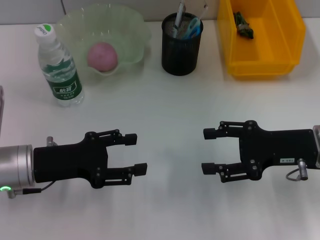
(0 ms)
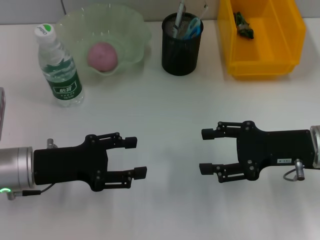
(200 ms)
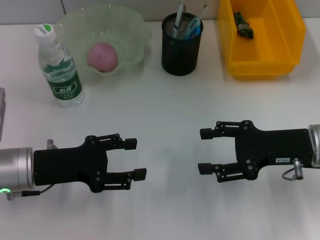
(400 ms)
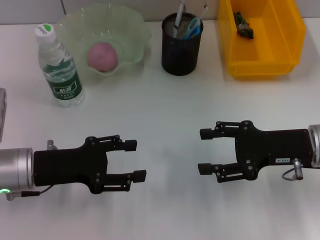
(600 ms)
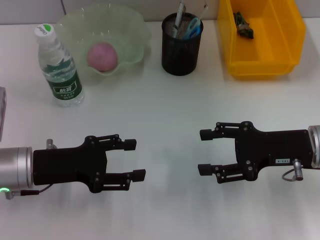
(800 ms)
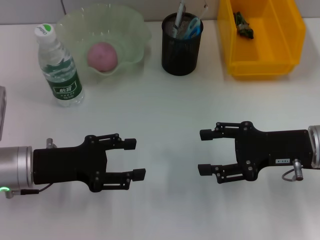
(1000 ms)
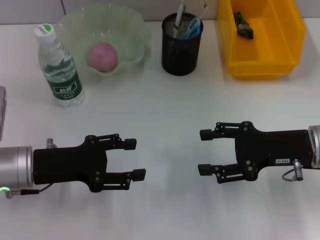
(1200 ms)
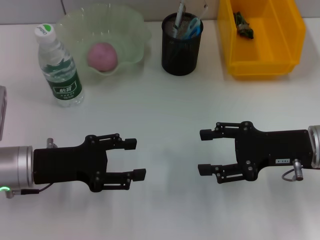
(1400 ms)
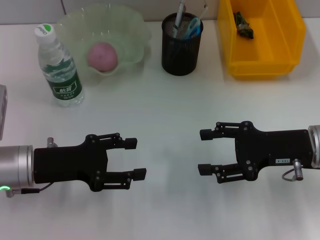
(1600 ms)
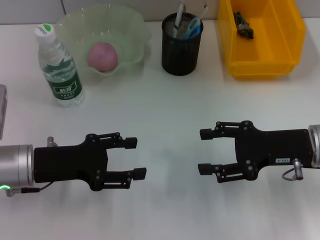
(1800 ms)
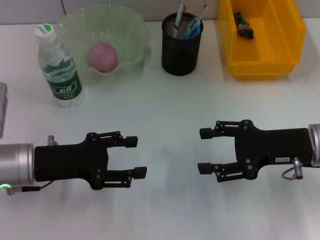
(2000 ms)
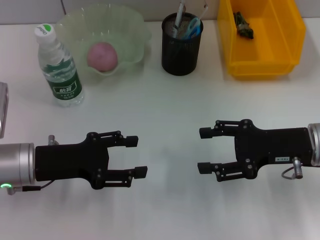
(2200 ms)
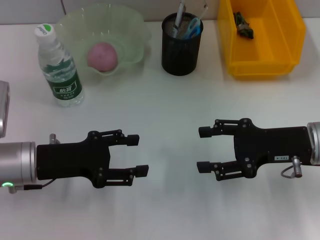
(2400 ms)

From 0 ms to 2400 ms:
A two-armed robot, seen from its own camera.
From 0 ms to 2400 ms: Both grippers stay put.

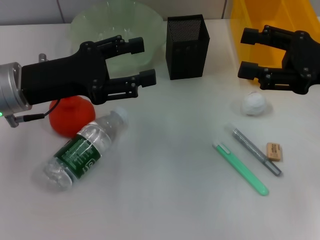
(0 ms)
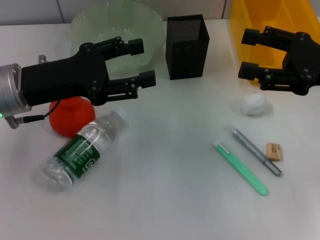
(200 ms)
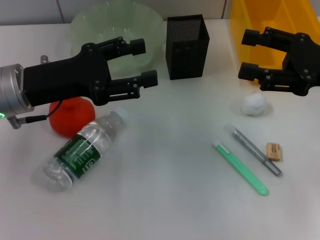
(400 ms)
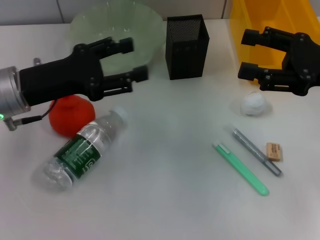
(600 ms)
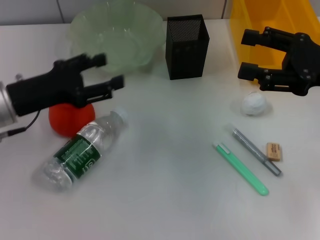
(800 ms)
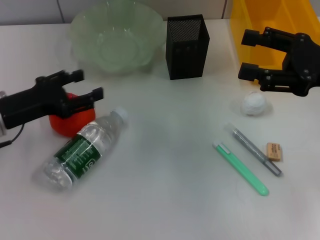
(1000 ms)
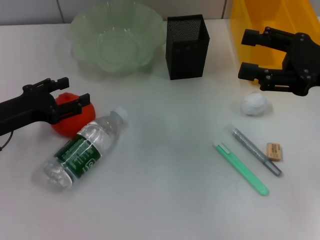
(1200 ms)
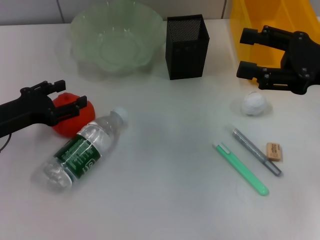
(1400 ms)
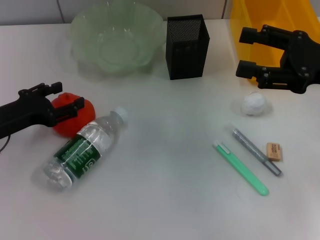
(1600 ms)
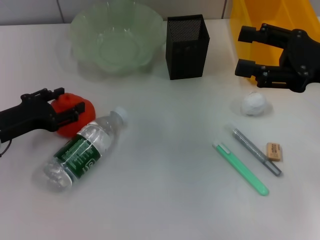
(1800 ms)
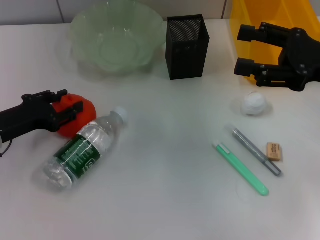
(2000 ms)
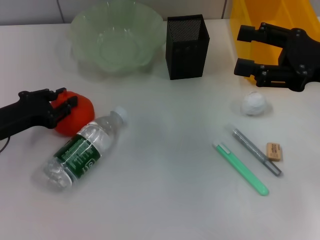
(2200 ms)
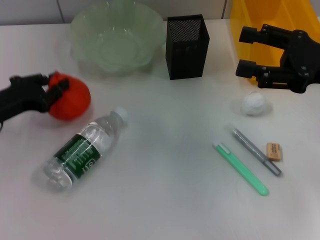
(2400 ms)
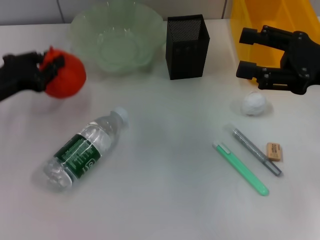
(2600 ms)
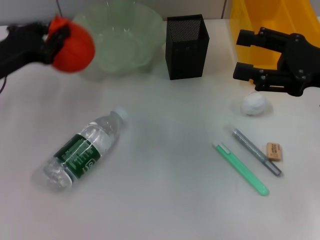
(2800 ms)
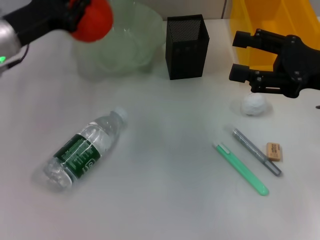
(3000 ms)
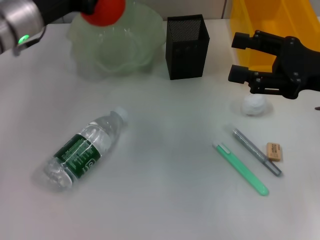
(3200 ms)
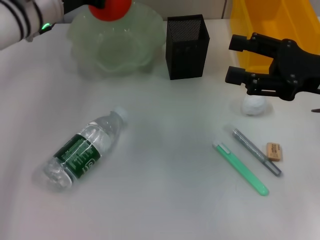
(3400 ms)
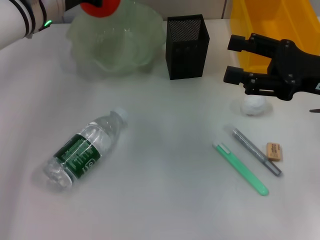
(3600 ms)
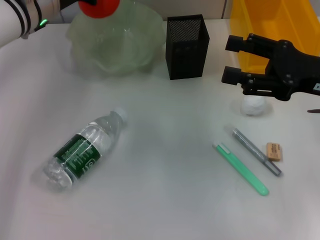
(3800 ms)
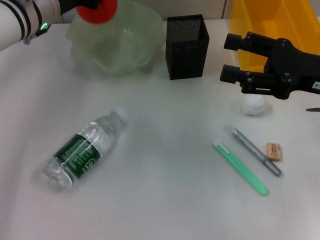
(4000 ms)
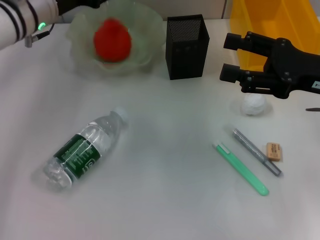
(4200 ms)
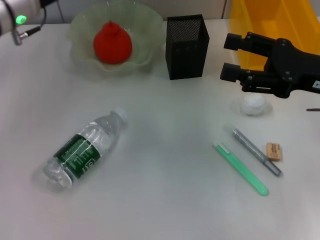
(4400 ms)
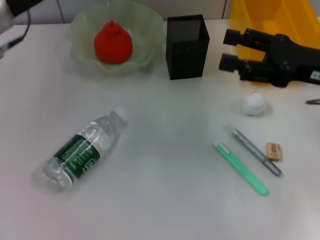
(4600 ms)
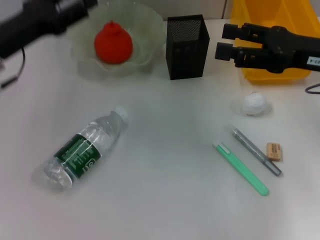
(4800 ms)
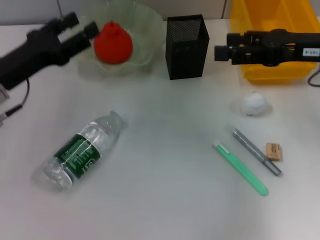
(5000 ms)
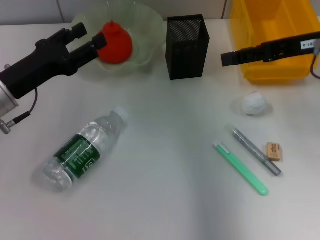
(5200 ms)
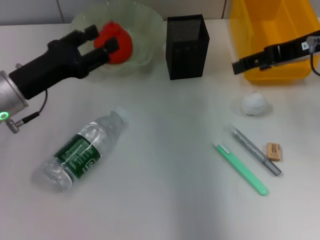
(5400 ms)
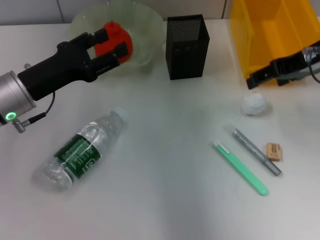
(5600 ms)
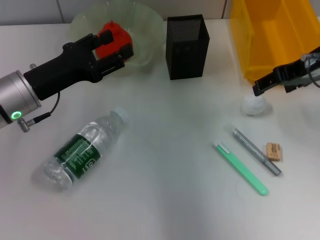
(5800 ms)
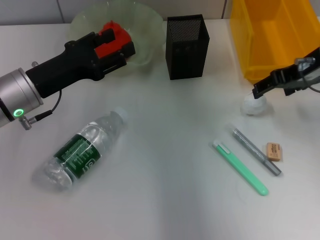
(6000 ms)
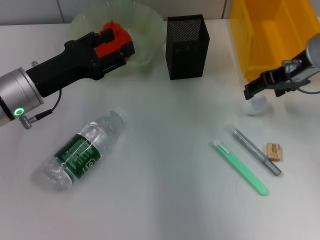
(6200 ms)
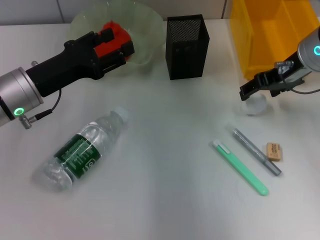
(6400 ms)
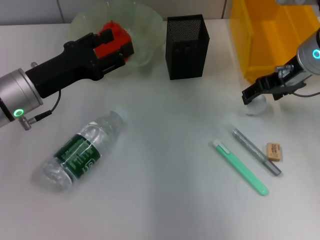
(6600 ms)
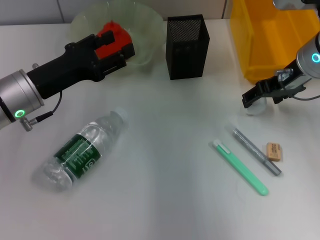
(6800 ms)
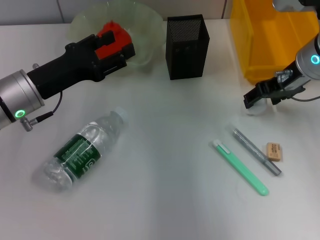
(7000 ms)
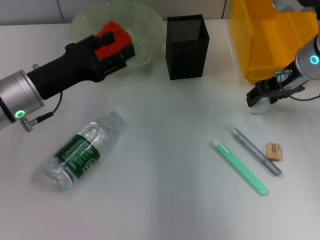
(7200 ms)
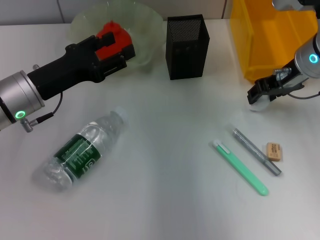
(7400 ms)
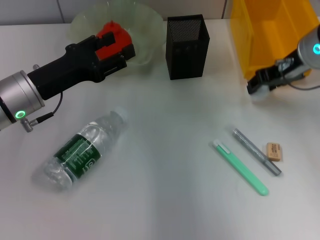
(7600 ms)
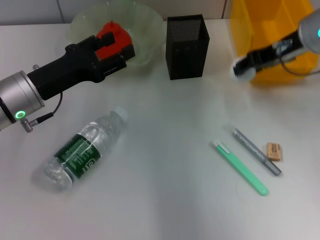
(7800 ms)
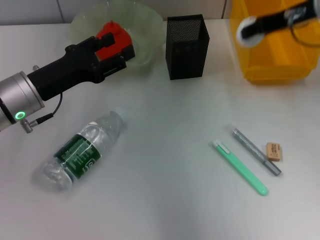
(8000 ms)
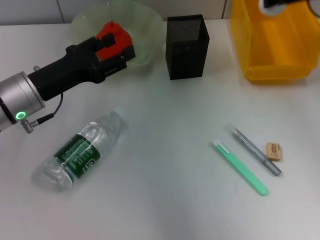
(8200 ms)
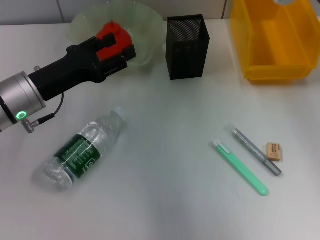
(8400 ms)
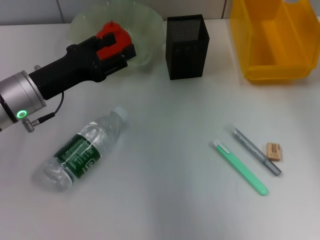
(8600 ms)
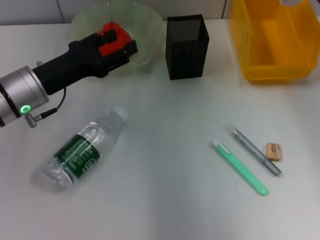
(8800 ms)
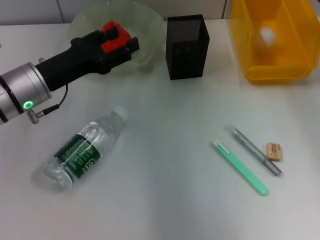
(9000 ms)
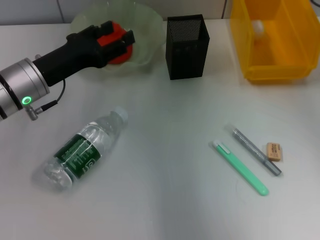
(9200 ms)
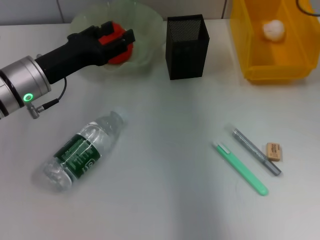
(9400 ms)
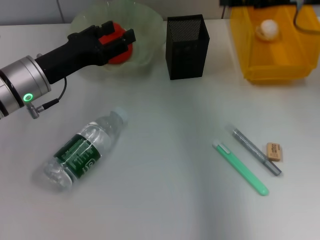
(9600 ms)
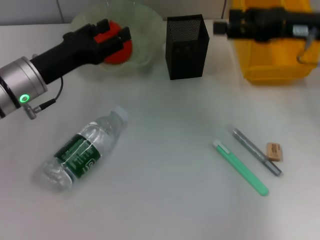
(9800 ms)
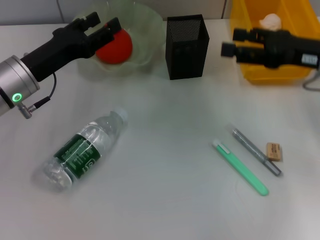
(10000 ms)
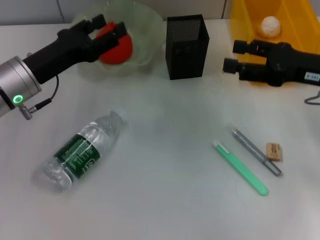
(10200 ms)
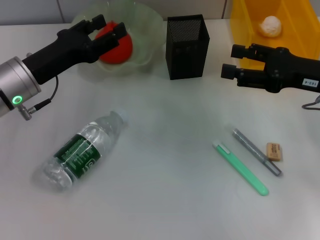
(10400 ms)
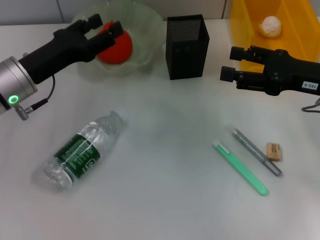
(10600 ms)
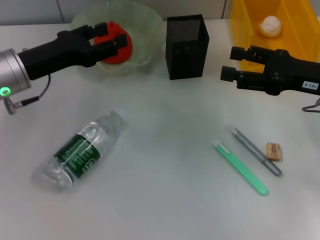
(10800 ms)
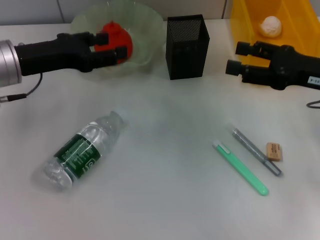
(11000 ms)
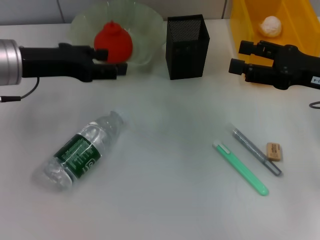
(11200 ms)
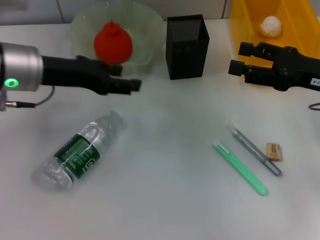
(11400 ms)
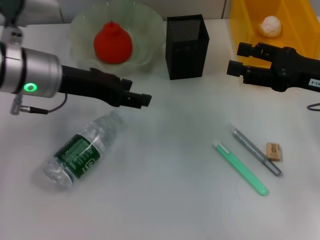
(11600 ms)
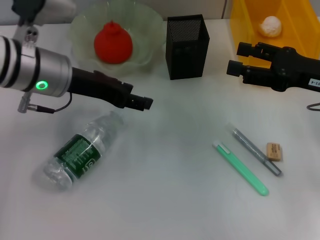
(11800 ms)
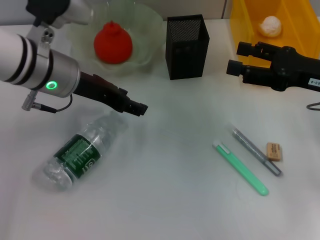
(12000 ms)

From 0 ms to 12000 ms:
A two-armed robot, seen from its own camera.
Step, from 0 ms to 2200 ms: Grab the orange with the left hand.
Step, from 2400 ms to 4200 ms: Place the orange into the fruit bowl with the left hand.
Step, from 4400 ms to 7000 ms: Grab the paper ball with the right hand.
Step, from 7200 ms to 9000 ms: Place the paper ball into the trash can with the right hand.
From 0 ms to 1600 ms: The left gripper travels downward and to the left by about 10 cm.
From 1600 ms to 3000 ms: The left gripper shifts about 15 cm forward, upward and to the right, and closes.
From 3000 ms to 4400 ms: The left gripper opens its fingers.
From 4400 ms to 6000 ms: The left gripper moves backward and downward, about 10 cm; the right gripper shifts about 10 cm forward.
From 6000 ms to 7600 ms: The right gripper closes.
From 7600 ms to 9000 ms: The right gripper goes some 5 cm upward.
From 9000 ms to 10400 ms: The right gripper goes some 15 cm backward and downward.
From 10400 ms to 12000 ms: The left gripper moves to the right and upward, approximately 10 cm.

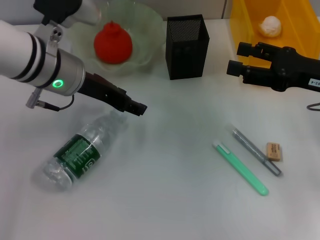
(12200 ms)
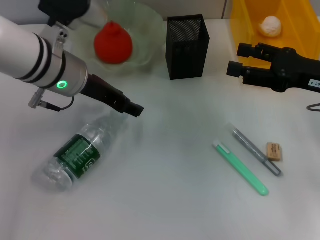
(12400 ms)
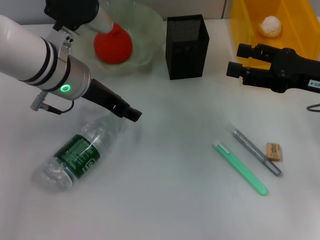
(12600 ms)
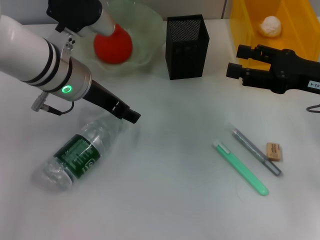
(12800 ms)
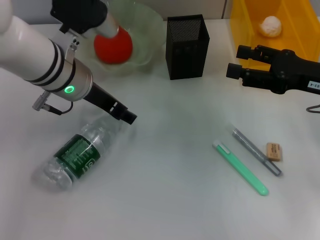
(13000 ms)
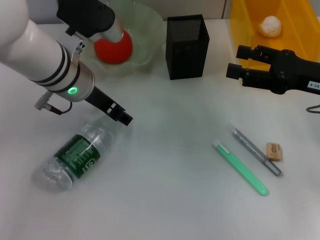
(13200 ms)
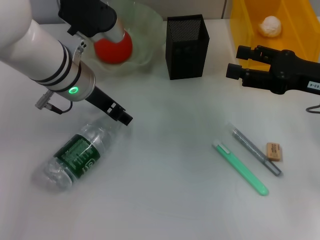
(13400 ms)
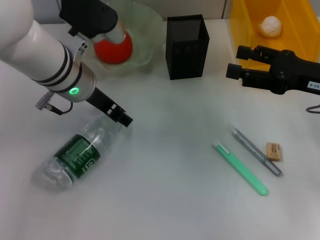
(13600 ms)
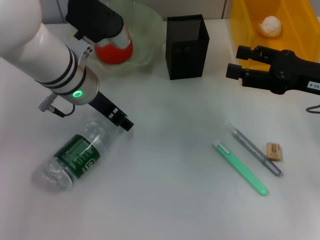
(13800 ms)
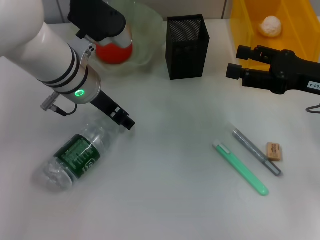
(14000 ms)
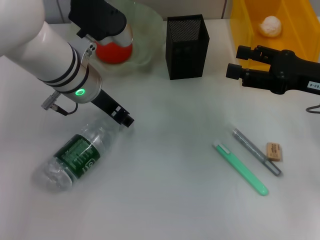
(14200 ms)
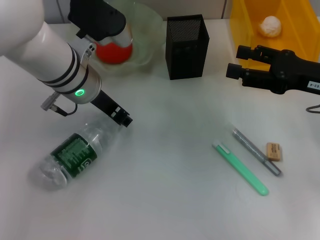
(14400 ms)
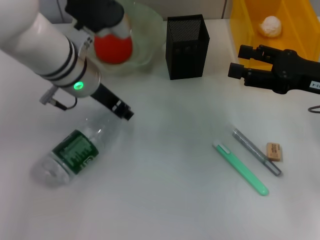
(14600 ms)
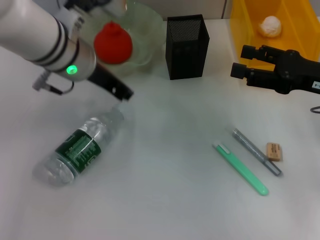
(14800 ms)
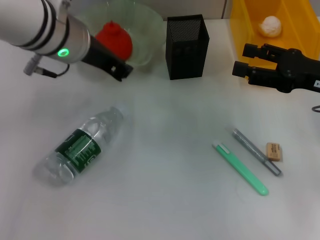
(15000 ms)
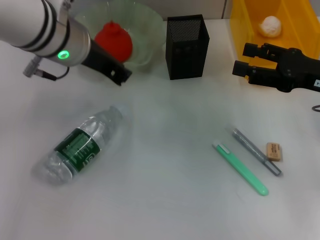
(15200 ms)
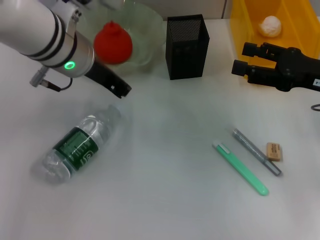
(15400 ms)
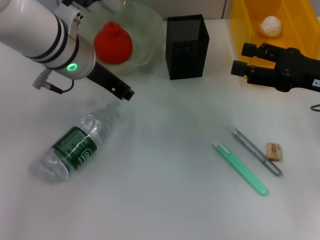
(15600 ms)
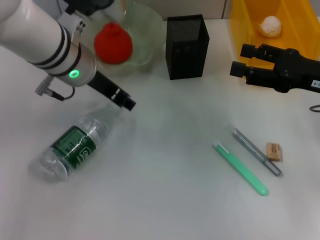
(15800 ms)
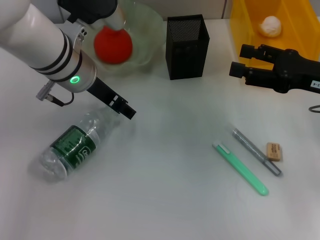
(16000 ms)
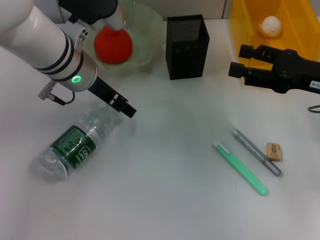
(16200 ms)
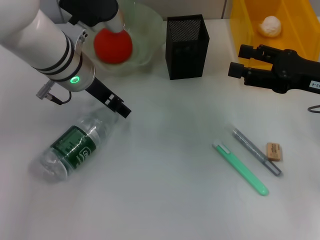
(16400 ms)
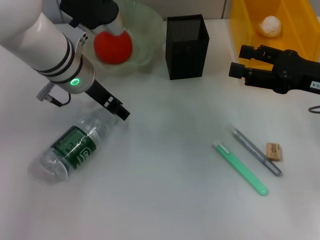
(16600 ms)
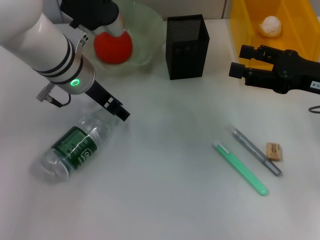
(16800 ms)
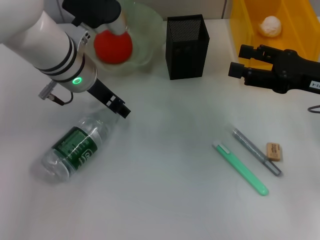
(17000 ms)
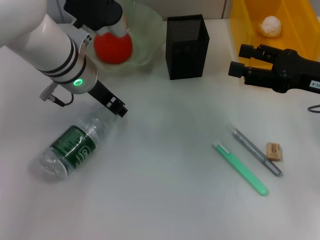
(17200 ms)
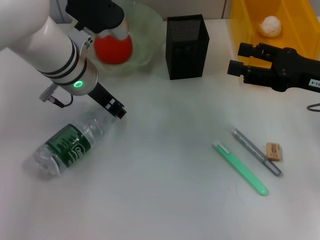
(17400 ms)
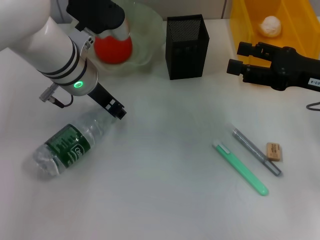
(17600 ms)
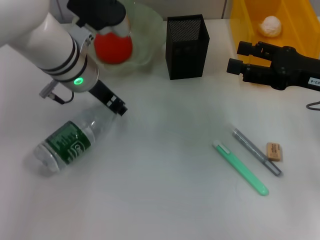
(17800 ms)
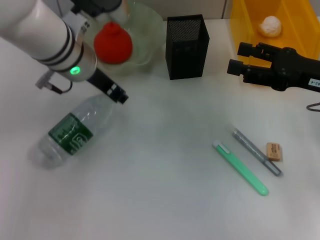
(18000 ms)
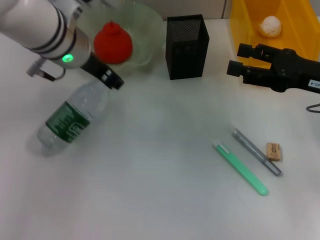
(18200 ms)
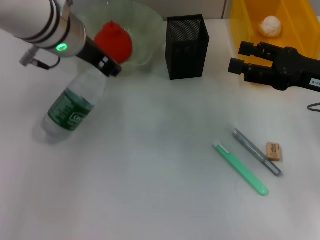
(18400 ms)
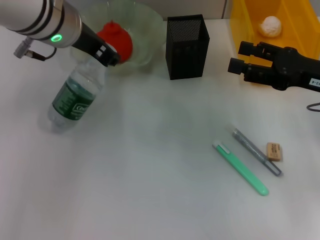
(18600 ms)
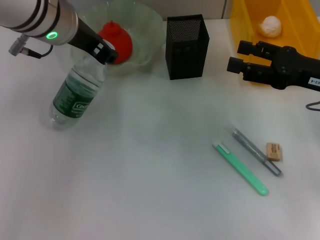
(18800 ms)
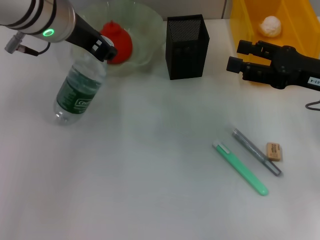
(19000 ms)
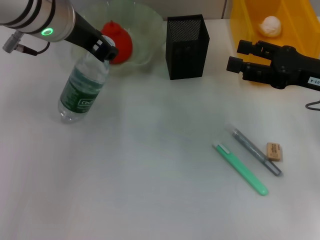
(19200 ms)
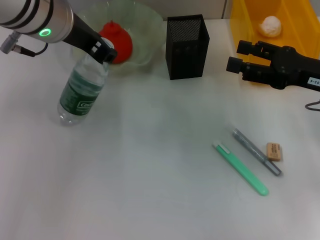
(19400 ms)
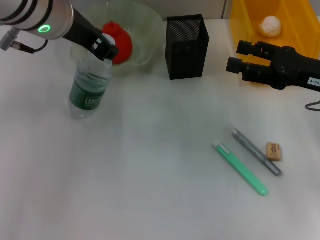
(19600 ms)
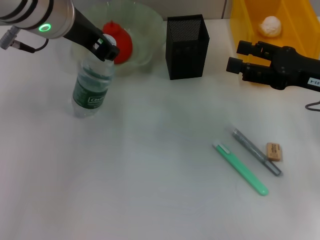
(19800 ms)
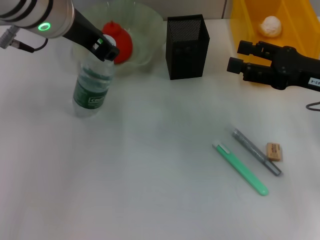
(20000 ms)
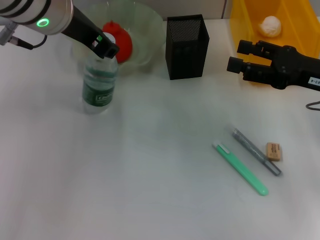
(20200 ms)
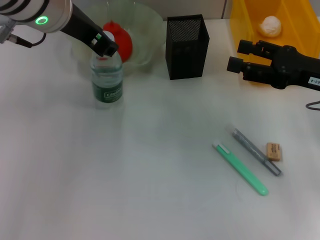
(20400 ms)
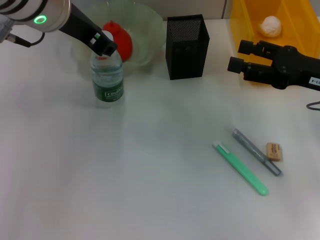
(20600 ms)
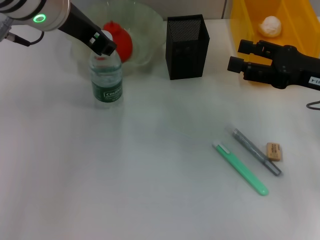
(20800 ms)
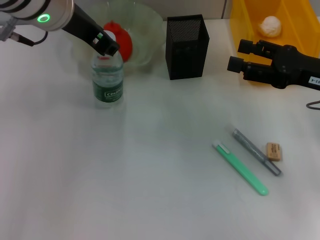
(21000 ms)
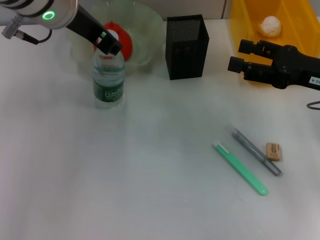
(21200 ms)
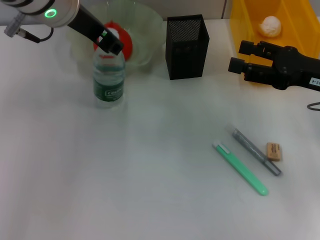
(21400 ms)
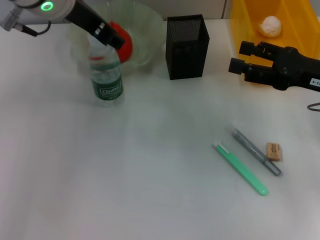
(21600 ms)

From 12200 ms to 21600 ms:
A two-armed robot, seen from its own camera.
Step, from 12200 ms to 17600 ms: Grab the water bottle with the left hand.
Step, from 17800 ms to 21600 ms: Place the water bottle on the table with the left hand.
From 12200 ms to 13800 ms: The grippers make only small movements.
From 13800 ms to 15400 ms: The left gripper closes up.
From 15400 ms to 17000 ms: The left gripper opens.
From 17000 ms to 18400 ms: The left gripper heads upward, covering about 5 cm, and closes.
From 18400 ms to 21600 ms: There are only small adjustments of the grippers.
